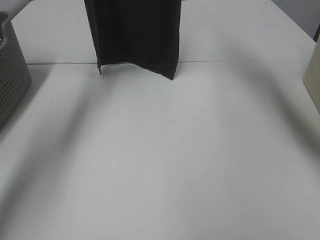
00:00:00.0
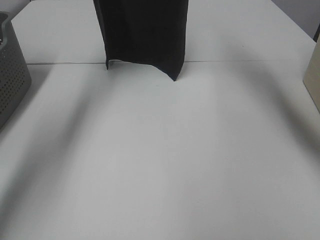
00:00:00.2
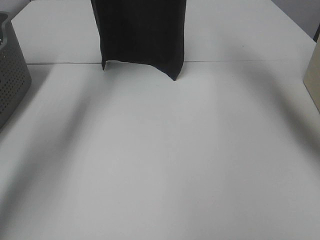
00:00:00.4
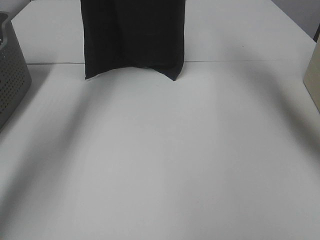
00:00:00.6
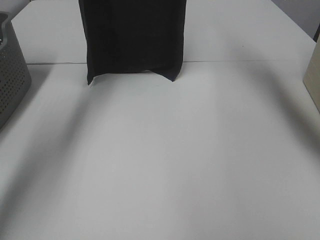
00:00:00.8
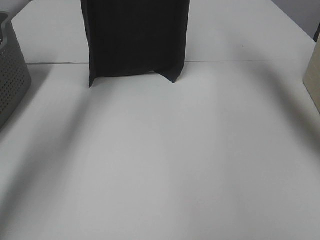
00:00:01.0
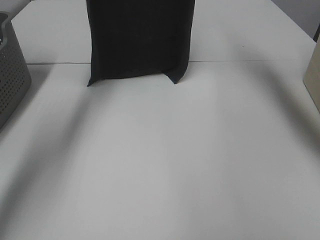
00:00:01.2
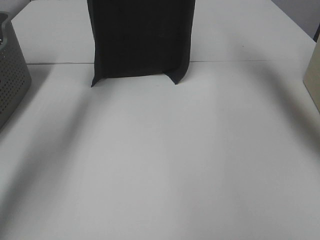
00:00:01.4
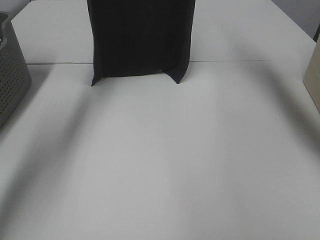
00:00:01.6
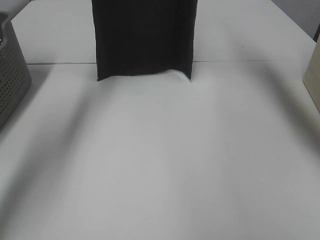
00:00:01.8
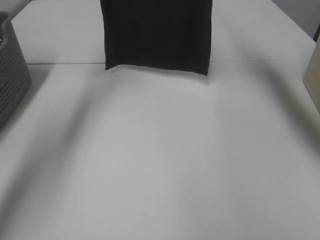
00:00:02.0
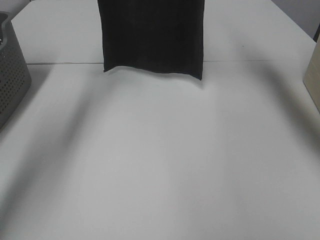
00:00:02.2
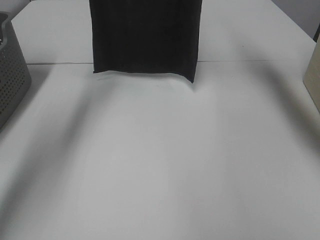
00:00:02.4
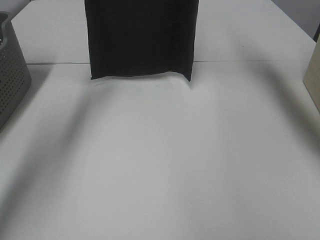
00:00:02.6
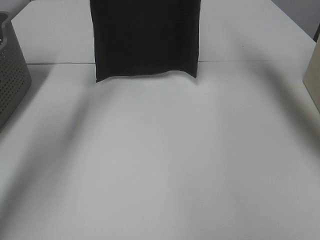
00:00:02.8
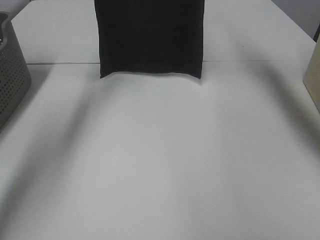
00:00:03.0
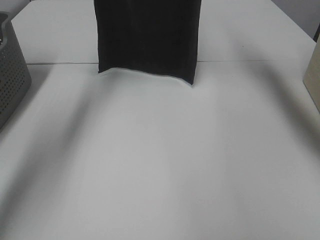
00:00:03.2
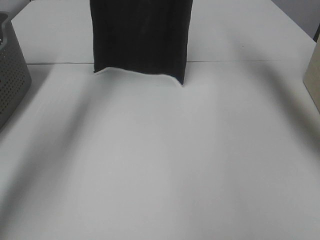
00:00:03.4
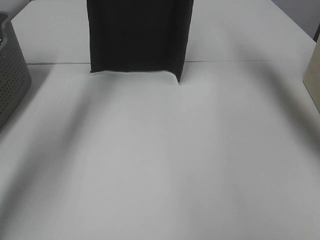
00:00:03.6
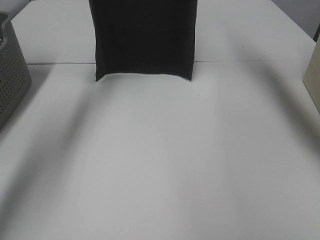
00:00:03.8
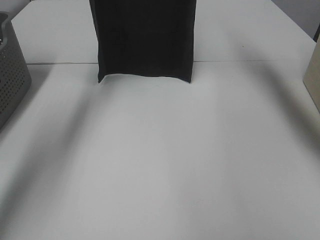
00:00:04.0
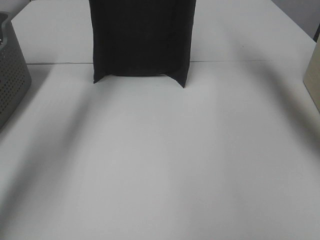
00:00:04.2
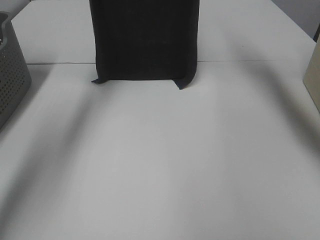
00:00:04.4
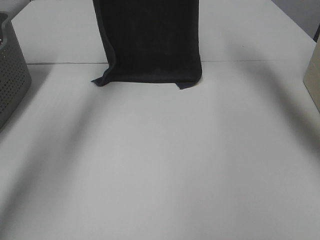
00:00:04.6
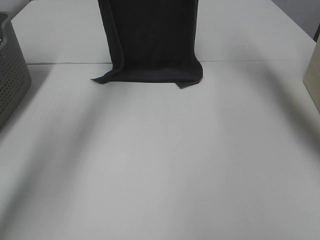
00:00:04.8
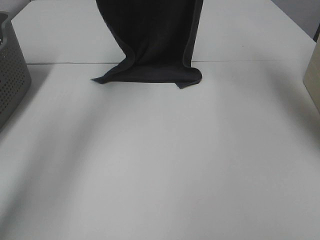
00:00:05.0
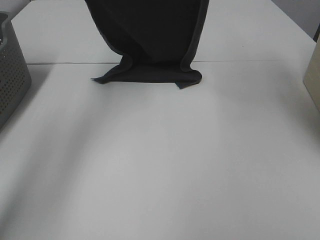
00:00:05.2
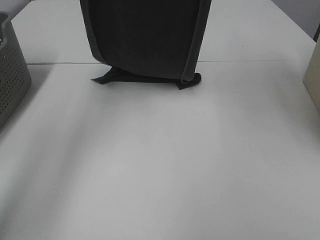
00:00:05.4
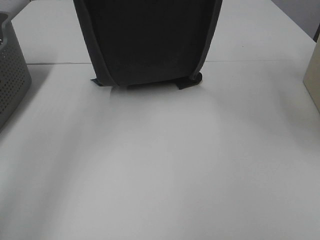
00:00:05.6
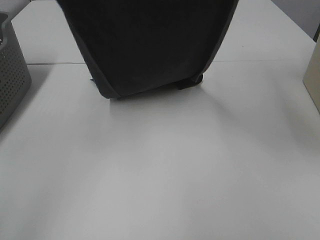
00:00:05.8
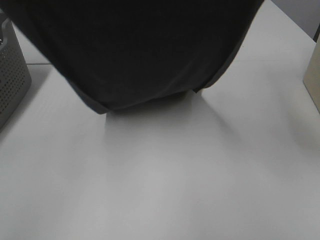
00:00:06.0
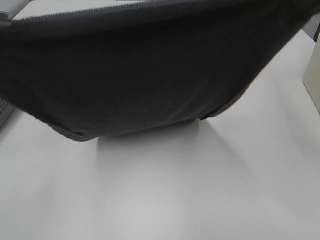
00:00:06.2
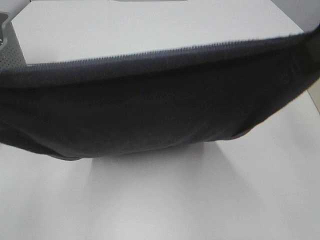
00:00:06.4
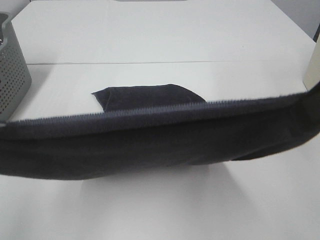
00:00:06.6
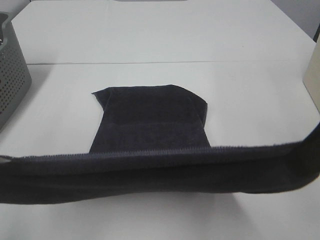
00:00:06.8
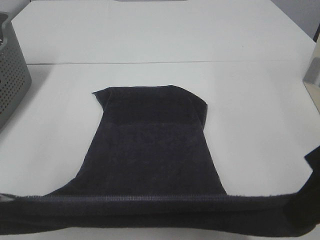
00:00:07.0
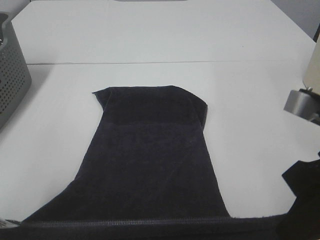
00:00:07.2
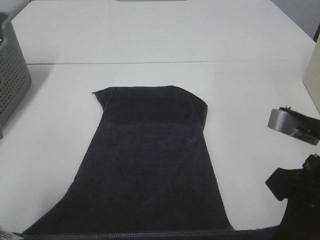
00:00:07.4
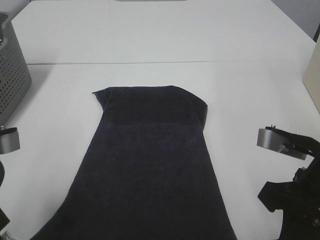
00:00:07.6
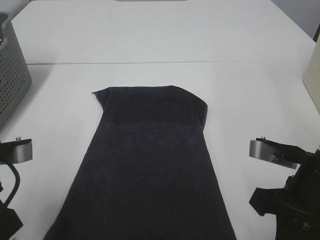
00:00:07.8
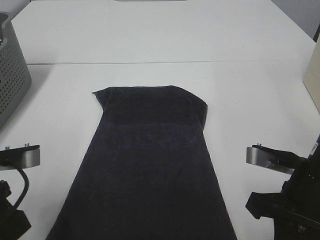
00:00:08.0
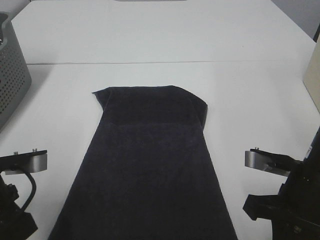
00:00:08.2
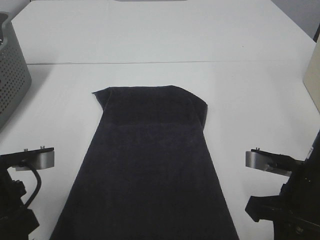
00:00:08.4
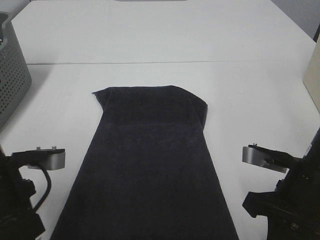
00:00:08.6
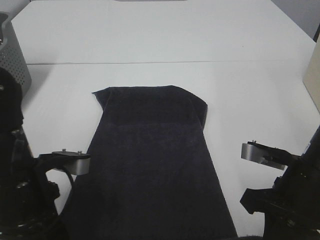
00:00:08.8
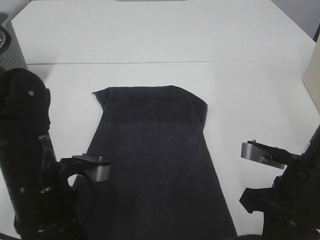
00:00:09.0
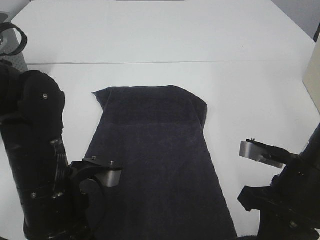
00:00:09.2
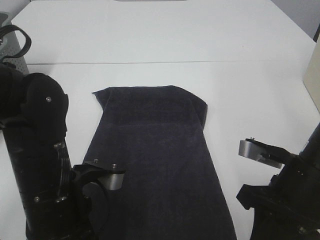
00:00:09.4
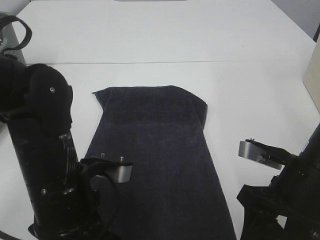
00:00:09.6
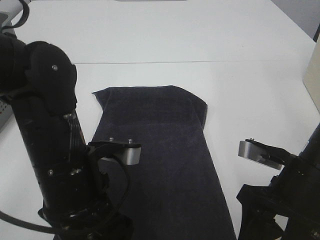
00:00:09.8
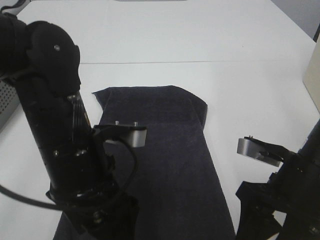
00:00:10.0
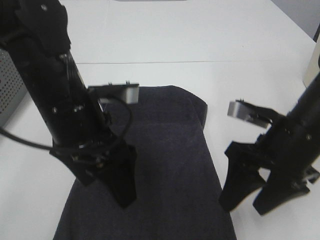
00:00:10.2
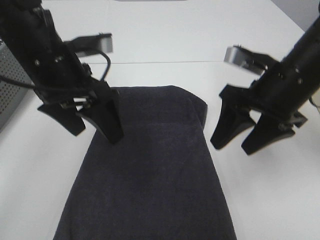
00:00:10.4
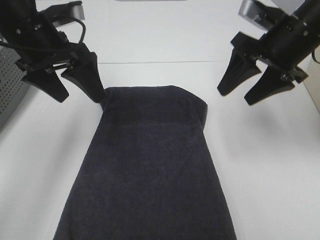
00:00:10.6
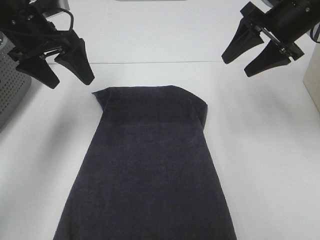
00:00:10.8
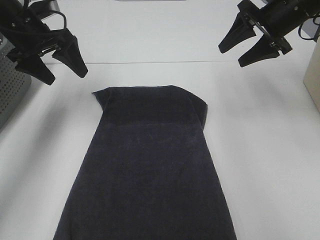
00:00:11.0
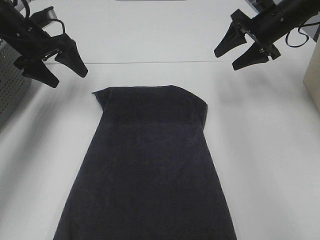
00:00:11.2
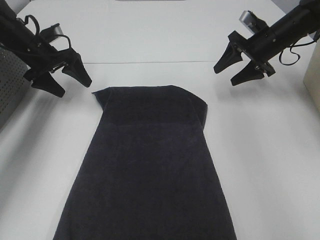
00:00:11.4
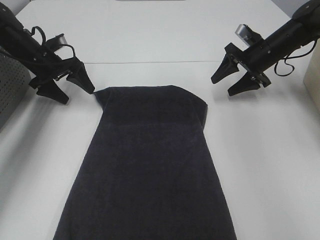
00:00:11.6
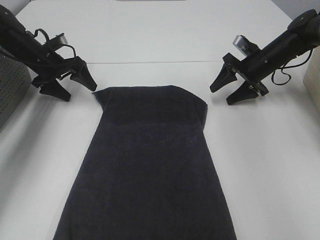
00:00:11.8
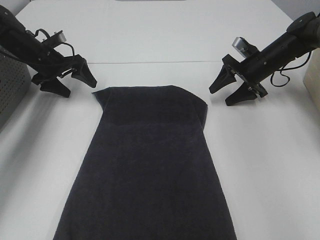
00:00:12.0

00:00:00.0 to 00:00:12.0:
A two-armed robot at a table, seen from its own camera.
Task of the whole recording: Remove the towel and place it.
Step, 00:00:00.0 to 00:00:05.4: Left hand: spread the grey towel flat on the table.
Step, 00:00:00.0 to 00:00:05.4: Right hand: spread the grey towel flat on the table.
Step, 00:00:05.6 to 00:00:11.0: Left hand:adjust the gray towel.
Step, 00:00:05.6 to 00:00:11.0: Right hand:adjust the gray towel.
00:00:00.0 to 00:00:04.4: The grippers stay close to where they were, moving slightly.
00:00:04.4 to 00:00:06.0: The grippers both shift backward by approximately 25 cm.
00:00:06.0 to 00:00:07.6: The left gripper heads downward and backward, covering roughly 20 cm. The right gripper goes about 25 cm downward.
00:00:07.6 to 00:00:09.0: The left gripper heads to the right and downward, covering roughly 10 cm.
00:00:09.0 to 00:00:10.4: The grippers both shift forward and upward by about 15 cm. The right gripper opens up. Meanwhile the left gripper opens.
00:00:10.4 to 00:00:12.0: The left gripper travels forward, to the left and downward by some 30 cm, while the right gripper moves forward and downward, roughly 25 cm.

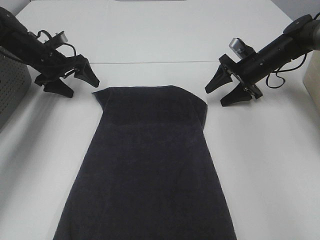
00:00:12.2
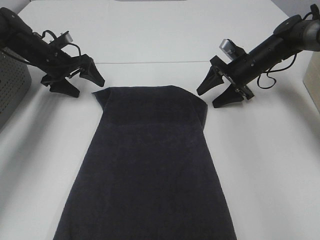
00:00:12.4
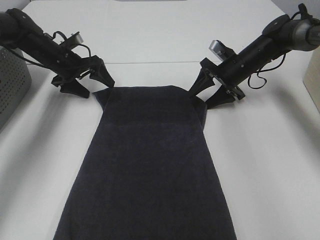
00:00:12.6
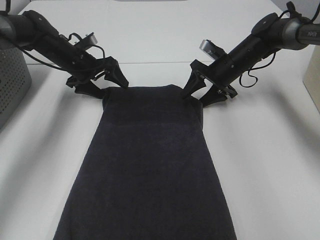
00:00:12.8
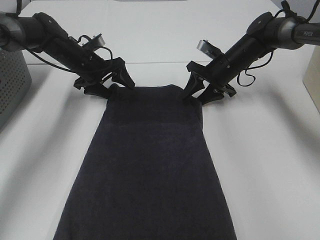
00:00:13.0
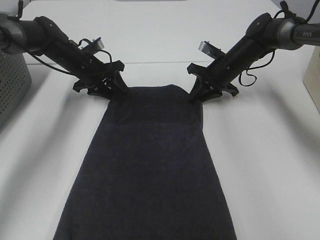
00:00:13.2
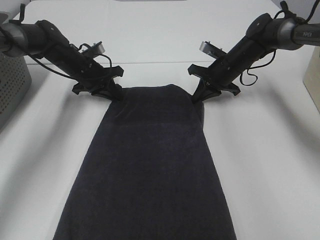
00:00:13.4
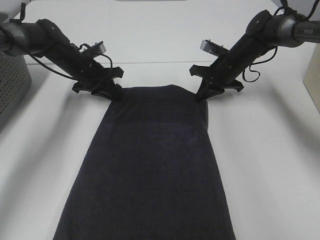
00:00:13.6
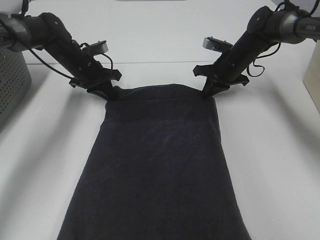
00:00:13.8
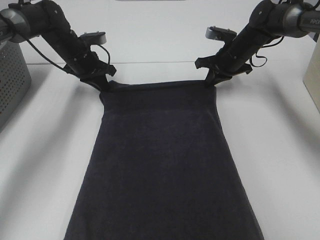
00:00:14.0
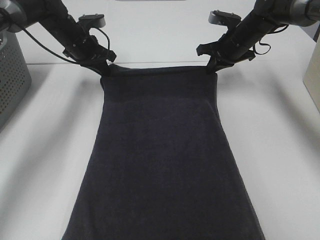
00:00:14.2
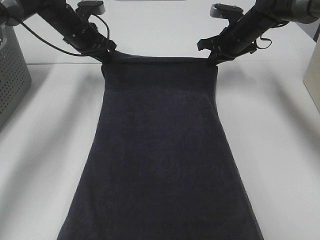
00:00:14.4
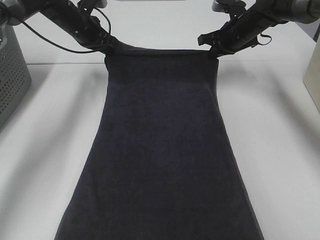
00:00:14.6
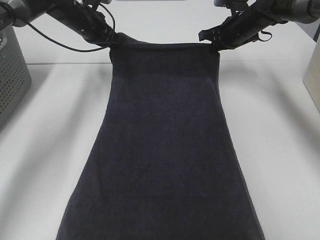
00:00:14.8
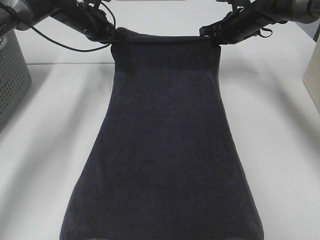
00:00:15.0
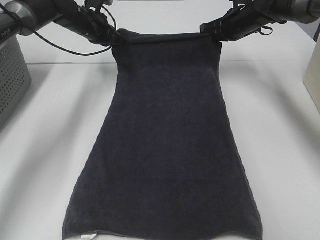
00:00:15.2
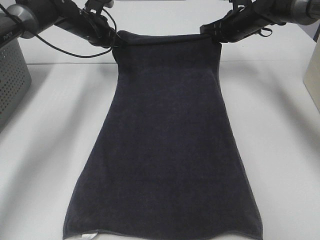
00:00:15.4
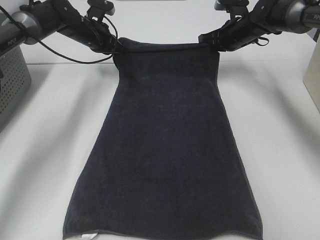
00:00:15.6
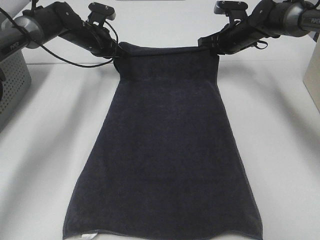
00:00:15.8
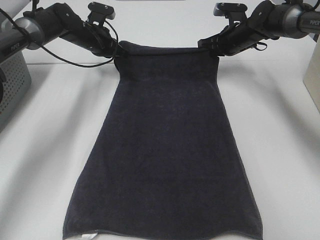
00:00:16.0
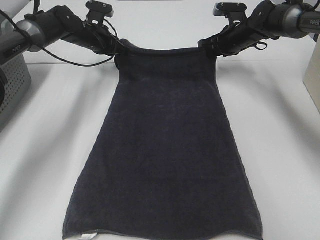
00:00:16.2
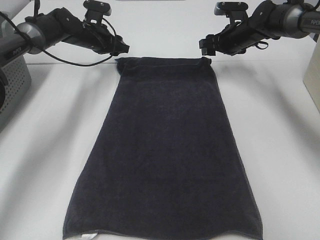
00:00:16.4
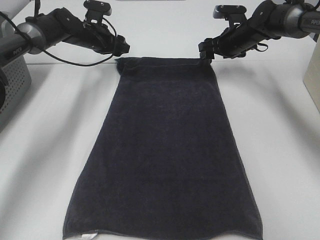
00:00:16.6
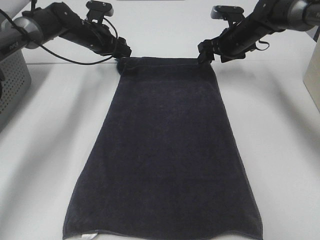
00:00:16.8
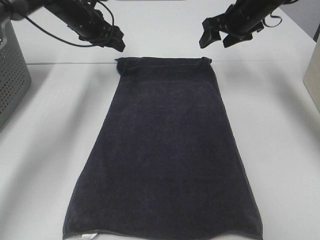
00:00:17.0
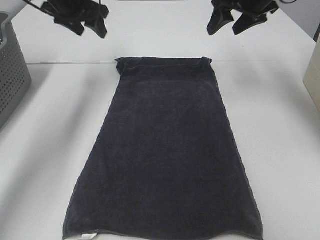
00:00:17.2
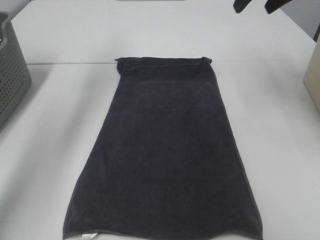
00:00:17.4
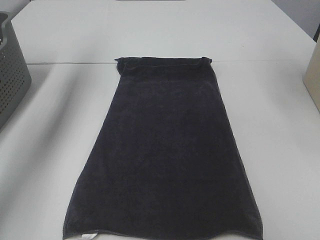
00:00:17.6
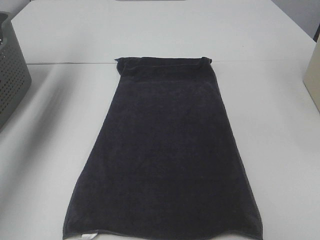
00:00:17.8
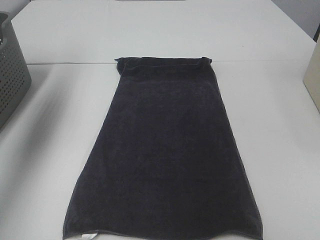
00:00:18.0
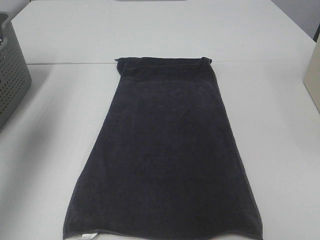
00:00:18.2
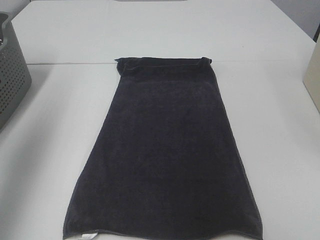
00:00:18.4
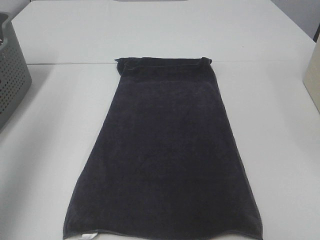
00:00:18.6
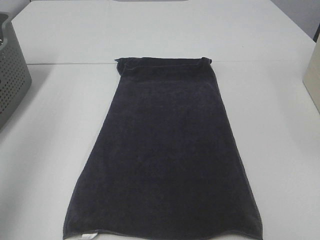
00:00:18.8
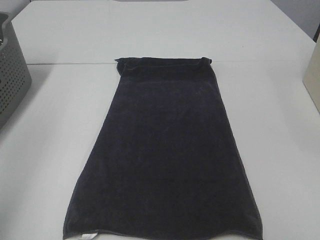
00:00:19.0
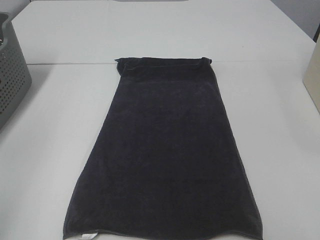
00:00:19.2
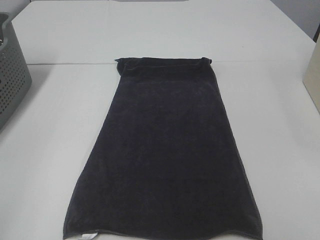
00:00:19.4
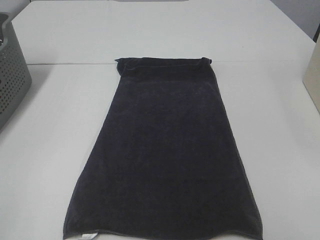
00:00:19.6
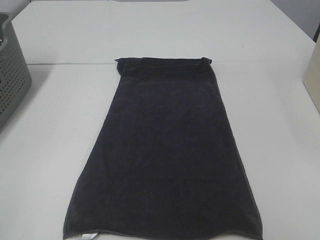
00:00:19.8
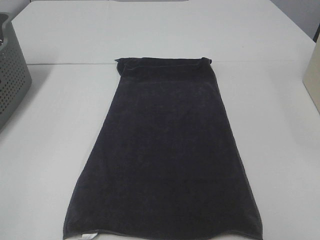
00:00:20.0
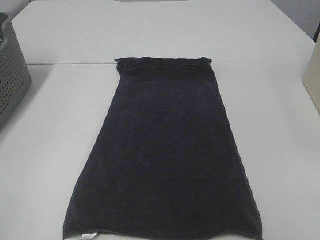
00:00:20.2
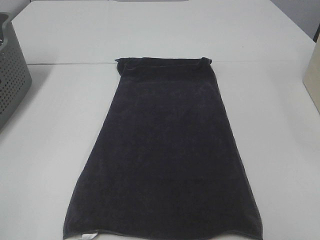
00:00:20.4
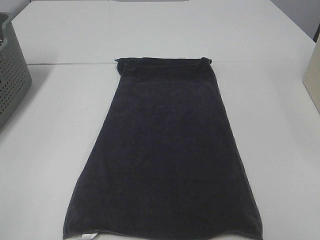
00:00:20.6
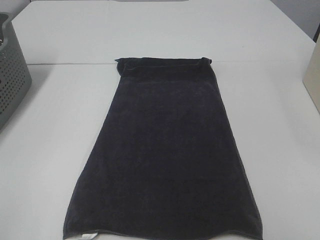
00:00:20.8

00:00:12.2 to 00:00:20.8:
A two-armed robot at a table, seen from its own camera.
Task of the whole recording: Remove the towel and place it.
00:00:12.2 to 00:00:13.6: The left gripper travels to the right by approximately 10 cm, and closes its fingers. Meanwhile the right gripper travels to the left by about 5 cm, and closes its fingers.
00:00:13.6 to 00:00:15.0: The left gripper moves upward and forward, roughly 10 cm. The right gripper goes about 10 cm upward.
00:00:15.0 to 00:00:16.6: The left gripper opens. Meanwhile the right gripper opens up.
00:00:16.6 to 00:00:18.0: The left gripper heads upward, backward and to the left, covering some 35 cm; the right gripper travels upward and backward by roughly 40 cm.
00:00:18.0 to 00:00:19.4: The left gripper travels backward by roughly 35 cm.

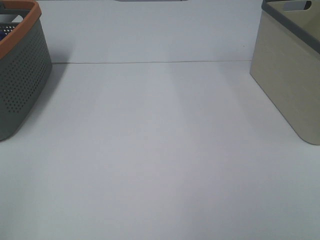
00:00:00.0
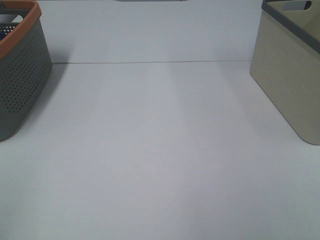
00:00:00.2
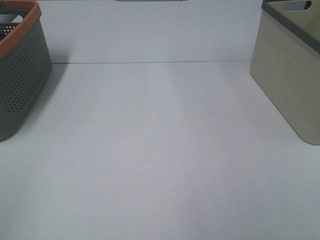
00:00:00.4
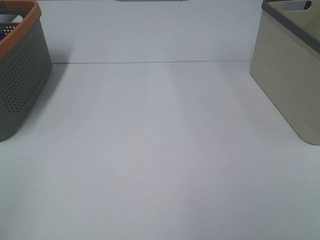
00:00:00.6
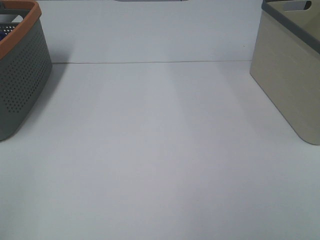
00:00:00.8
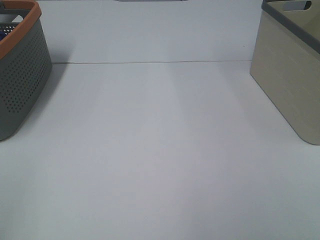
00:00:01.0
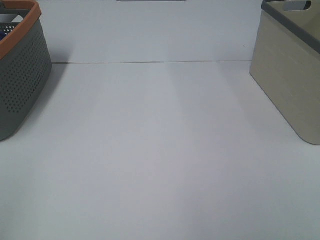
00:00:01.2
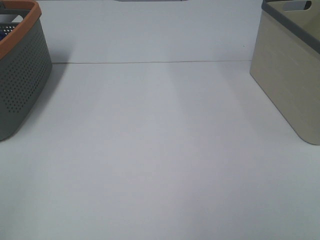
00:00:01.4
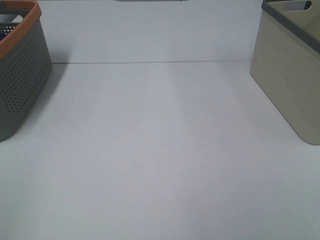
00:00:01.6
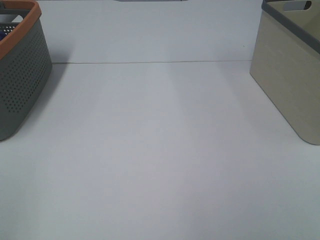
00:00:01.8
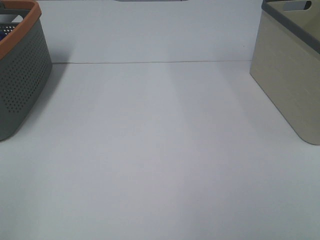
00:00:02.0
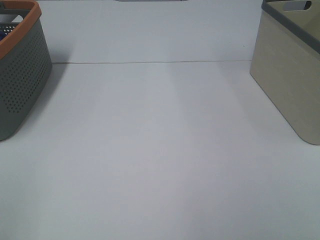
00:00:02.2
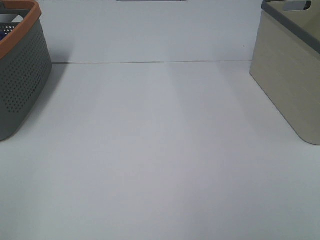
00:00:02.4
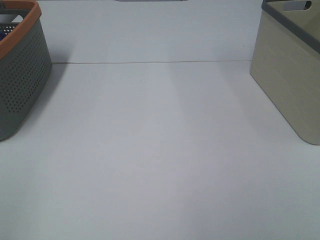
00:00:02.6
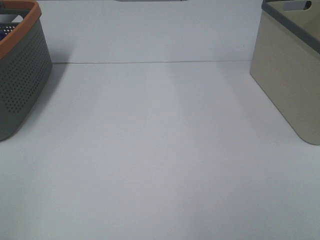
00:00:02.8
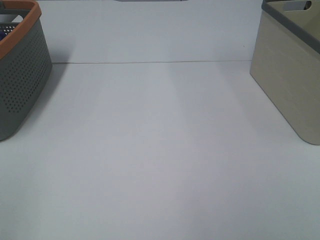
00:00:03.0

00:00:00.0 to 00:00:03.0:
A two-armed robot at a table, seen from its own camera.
Task of the whole recording: Remove the towel and place it.
00:00:00.0 to 00:00:03.0: The two grippers keep their place.
